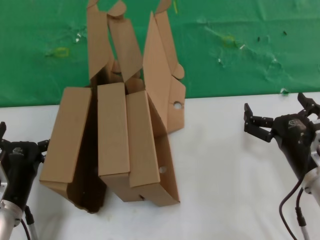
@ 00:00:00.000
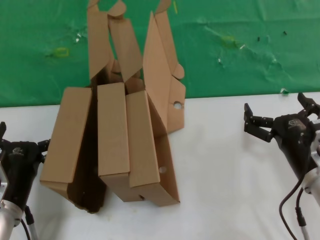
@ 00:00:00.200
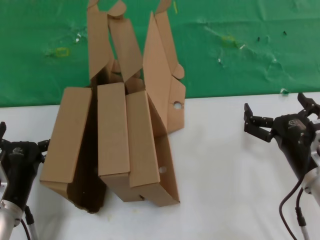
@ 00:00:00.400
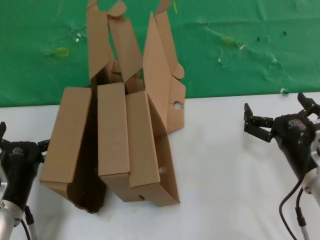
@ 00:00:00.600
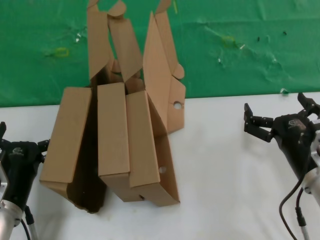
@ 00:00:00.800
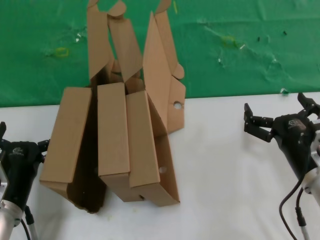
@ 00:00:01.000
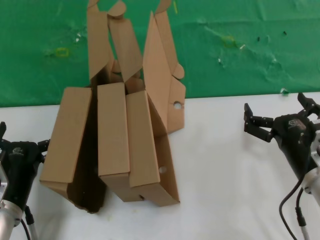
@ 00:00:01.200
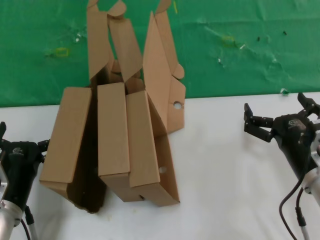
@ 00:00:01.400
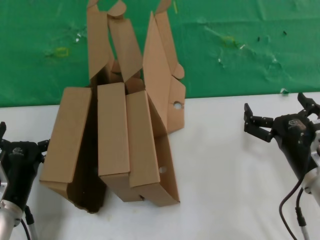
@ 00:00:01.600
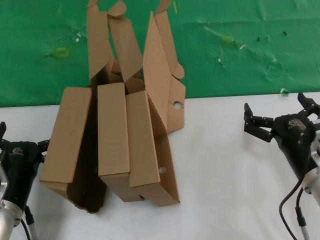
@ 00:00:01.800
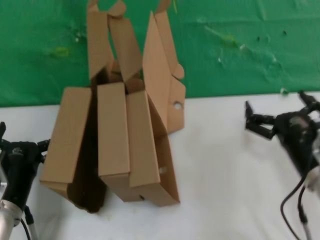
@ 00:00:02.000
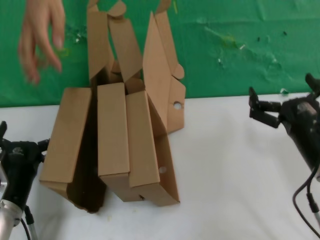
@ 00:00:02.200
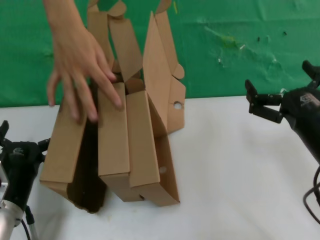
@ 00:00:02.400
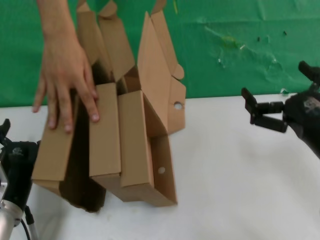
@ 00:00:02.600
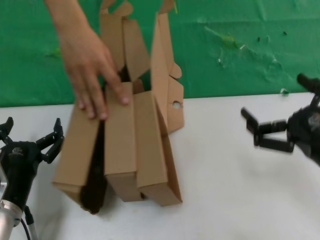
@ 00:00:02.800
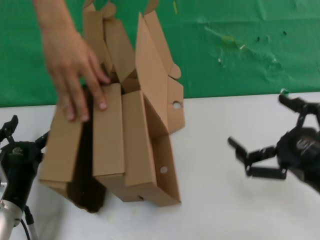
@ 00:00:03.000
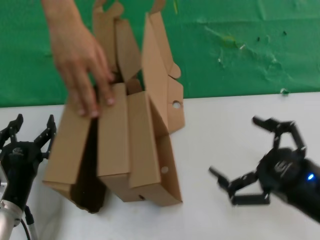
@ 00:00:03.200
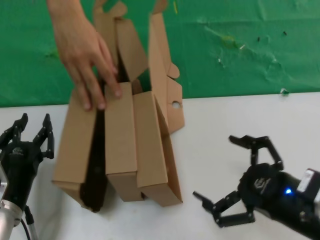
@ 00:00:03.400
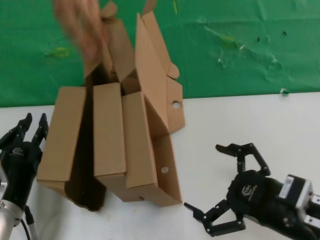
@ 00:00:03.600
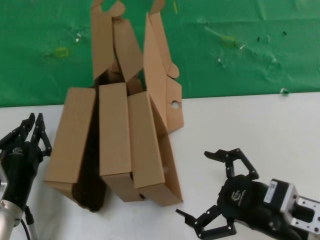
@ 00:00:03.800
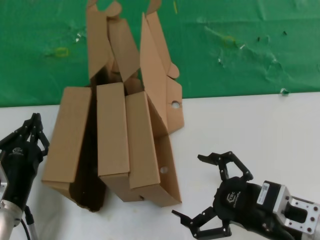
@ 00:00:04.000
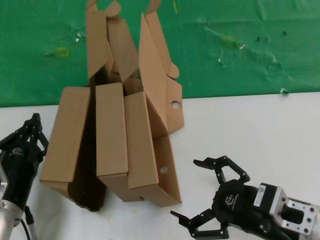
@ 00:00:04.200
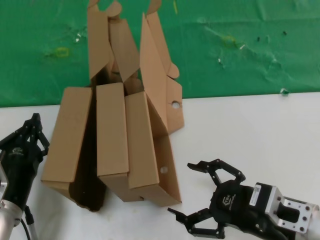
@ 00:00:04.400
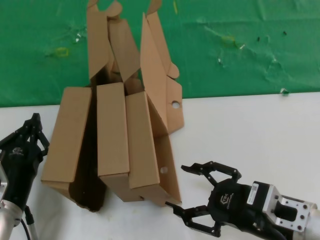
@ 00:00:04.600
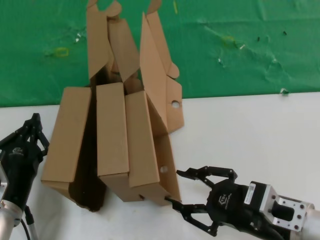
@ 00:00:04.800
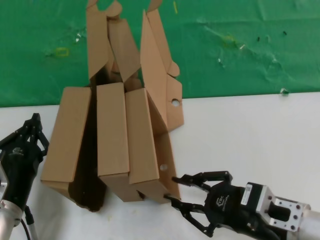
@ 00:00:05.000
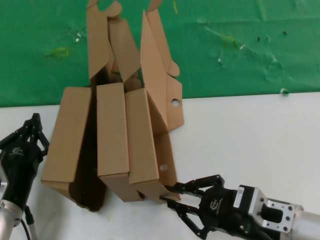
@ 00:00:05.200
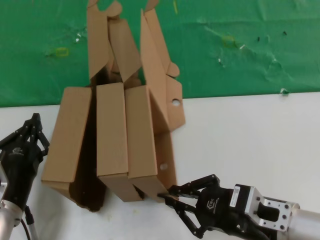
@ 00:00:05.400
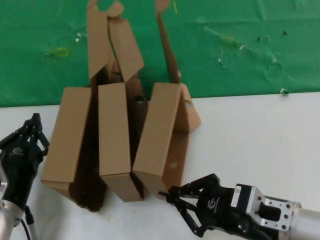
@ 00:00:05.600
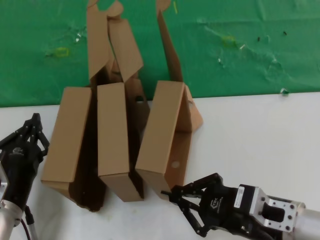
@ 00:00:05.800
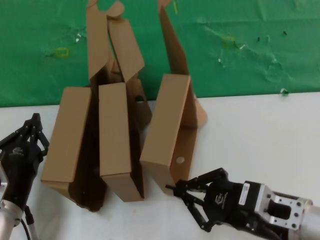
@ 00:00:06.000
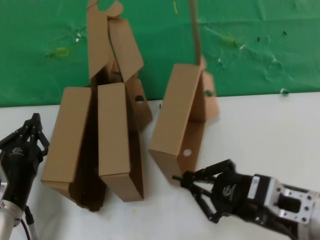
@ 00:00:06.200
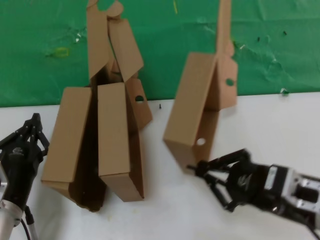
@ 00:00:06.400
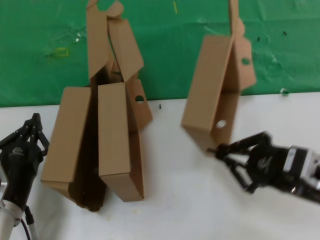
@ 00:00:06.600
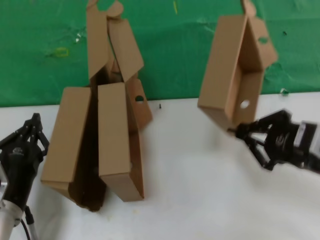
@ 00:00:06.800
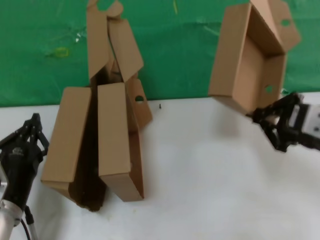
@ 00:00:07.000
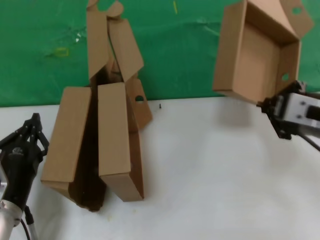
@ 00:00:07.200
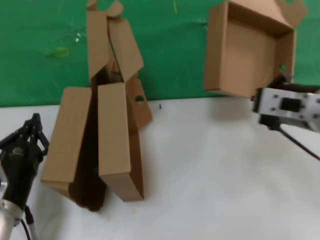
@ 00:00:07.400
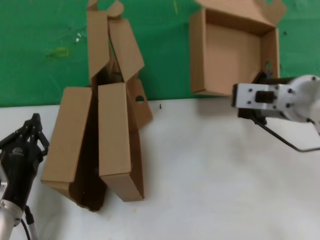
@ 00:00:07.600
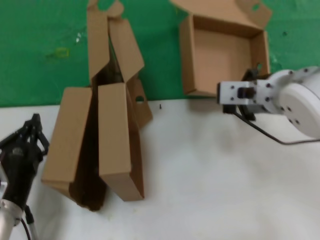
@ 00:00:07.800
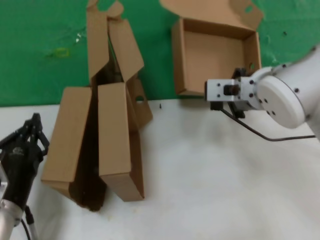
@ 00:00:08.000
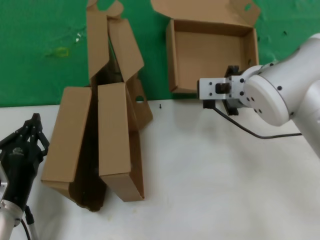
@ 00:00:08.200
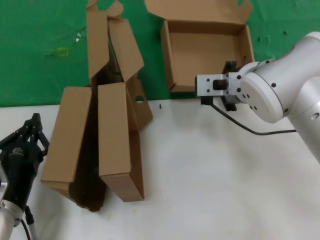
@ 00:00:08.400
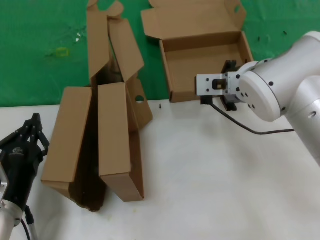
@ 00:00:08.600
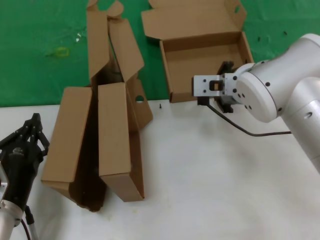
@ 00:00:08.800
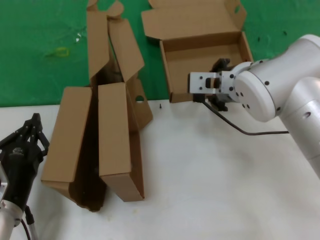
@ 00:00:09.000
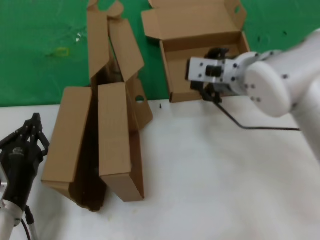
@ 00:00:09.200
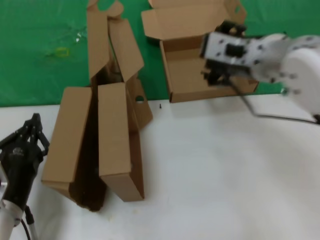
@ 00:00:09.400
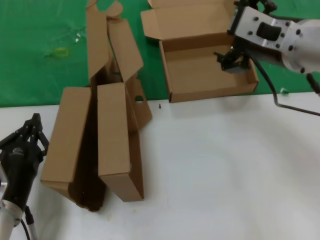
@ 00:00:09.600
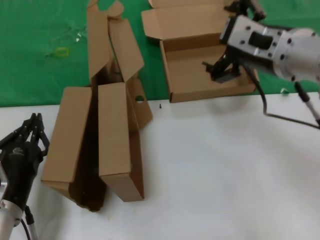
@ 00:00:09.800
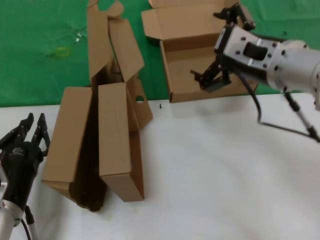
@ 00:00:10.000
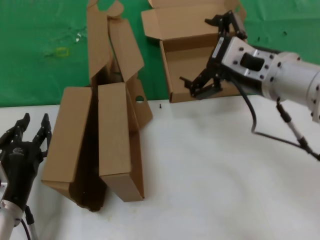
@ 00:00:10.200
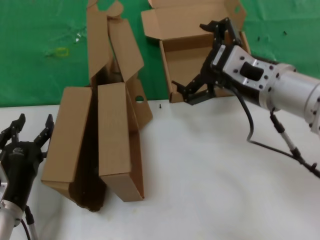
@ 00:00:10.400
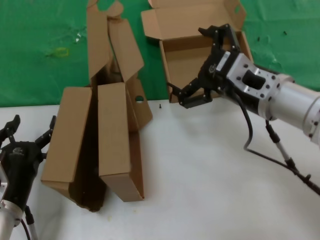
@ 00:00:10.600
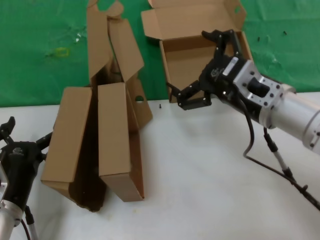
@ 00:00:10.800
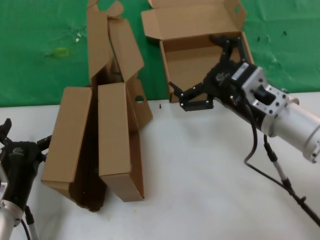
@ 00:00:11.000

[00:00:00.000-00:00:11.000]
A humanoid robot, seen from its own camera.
Task of the whole recording: pick up the paper box and put it at the back.
Step, 00:00:00.000 to 00:00:05.400: Grasp the paper box.
Step, 00:00:05.600 to 00:00:08.600: Place the paper box on the table.
00:00:00.000 to 00:00:01.600: The two hands keep their place.
00:00:01.600 to 00:00:03.200: The right hand shifts some 15 cm backward and upward.
00:00:03.200 to 00:00:04.800: The right hand moves to the left, some 5 cm.
00:00:06.200 to 00:00:07.800: The right hand moves forward and upward, about 20 cm.
00:00:09.400 to 00:00:11.000: The right hand goes roughly 10 cm downward.

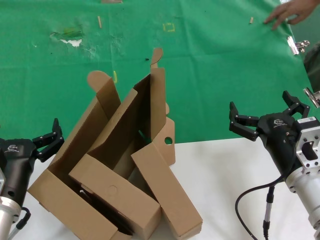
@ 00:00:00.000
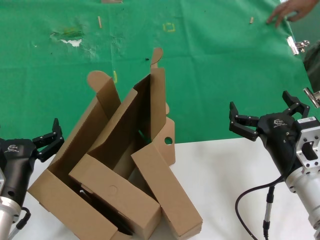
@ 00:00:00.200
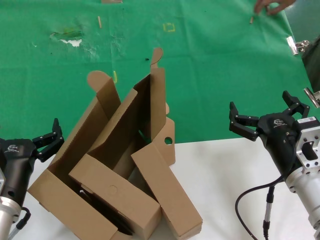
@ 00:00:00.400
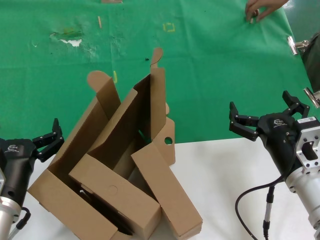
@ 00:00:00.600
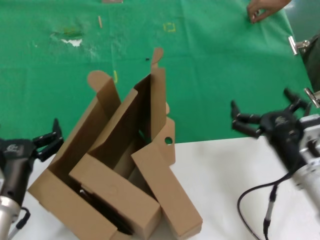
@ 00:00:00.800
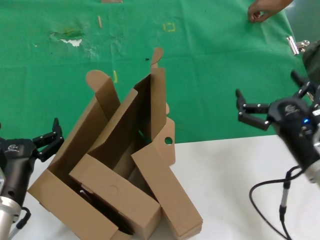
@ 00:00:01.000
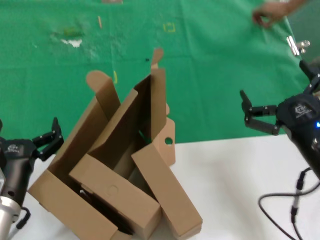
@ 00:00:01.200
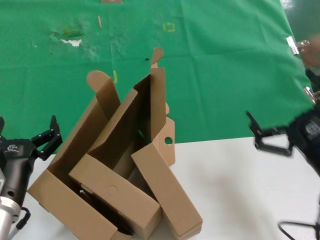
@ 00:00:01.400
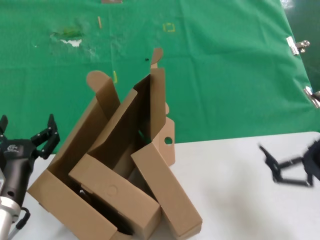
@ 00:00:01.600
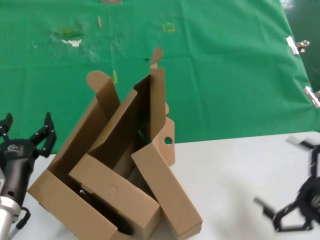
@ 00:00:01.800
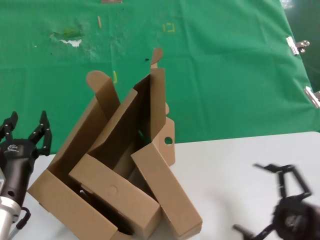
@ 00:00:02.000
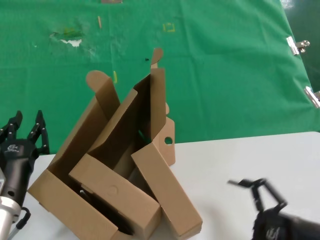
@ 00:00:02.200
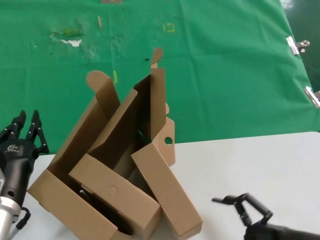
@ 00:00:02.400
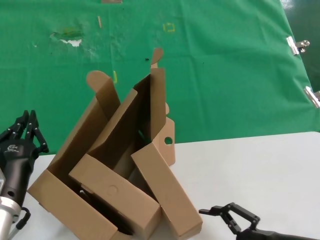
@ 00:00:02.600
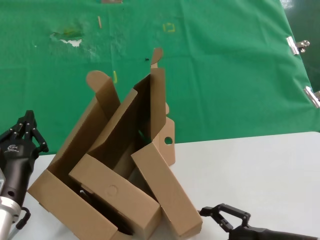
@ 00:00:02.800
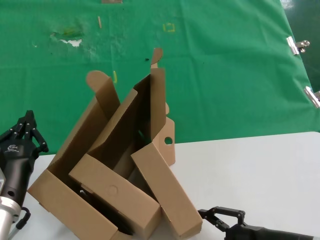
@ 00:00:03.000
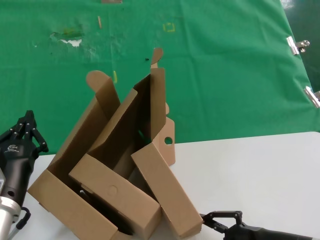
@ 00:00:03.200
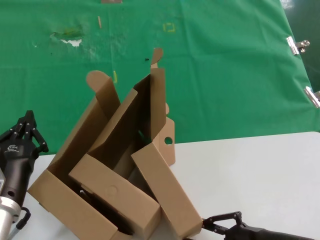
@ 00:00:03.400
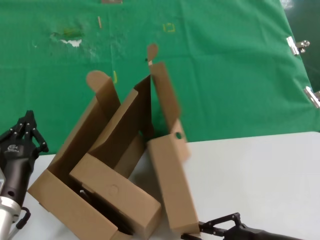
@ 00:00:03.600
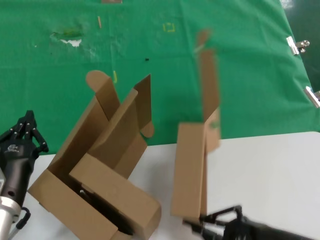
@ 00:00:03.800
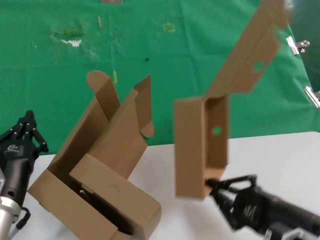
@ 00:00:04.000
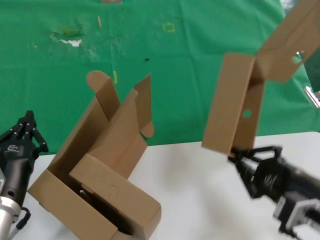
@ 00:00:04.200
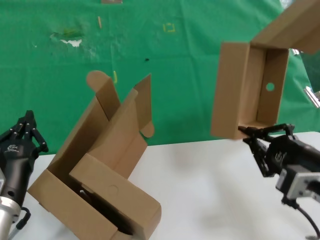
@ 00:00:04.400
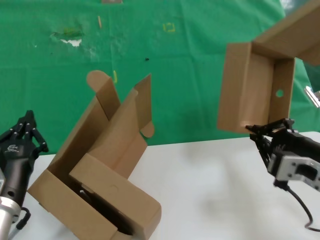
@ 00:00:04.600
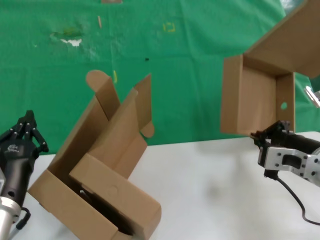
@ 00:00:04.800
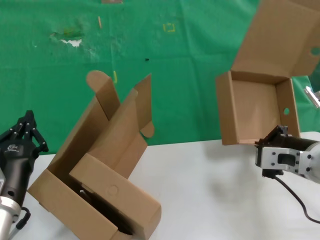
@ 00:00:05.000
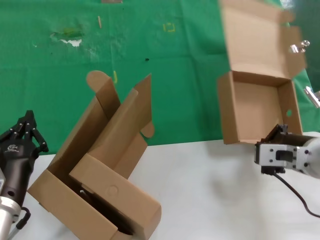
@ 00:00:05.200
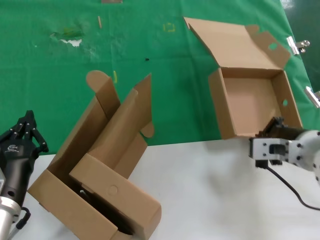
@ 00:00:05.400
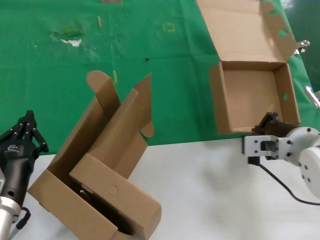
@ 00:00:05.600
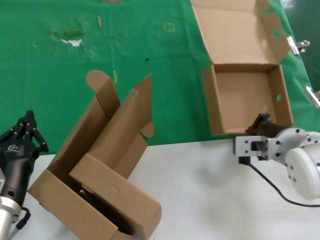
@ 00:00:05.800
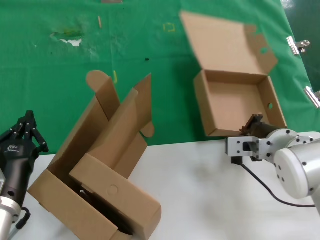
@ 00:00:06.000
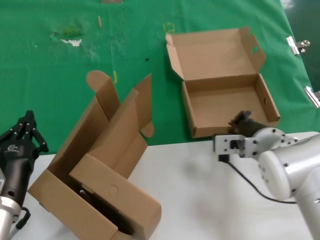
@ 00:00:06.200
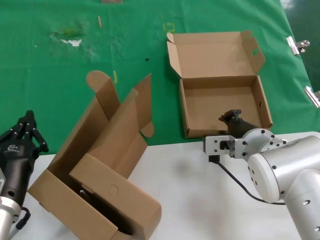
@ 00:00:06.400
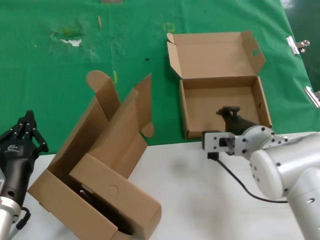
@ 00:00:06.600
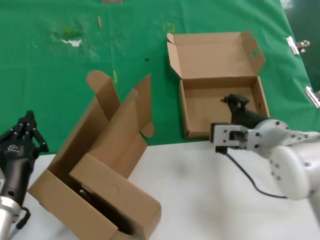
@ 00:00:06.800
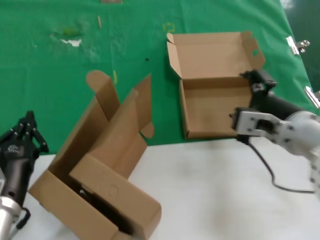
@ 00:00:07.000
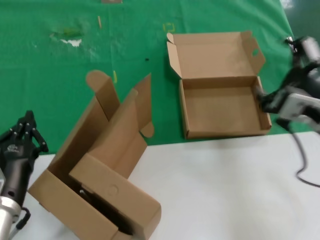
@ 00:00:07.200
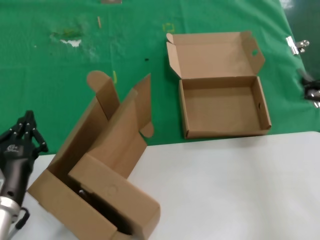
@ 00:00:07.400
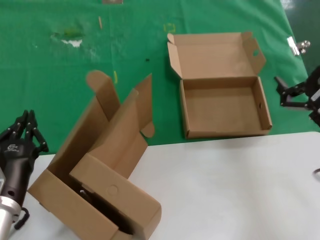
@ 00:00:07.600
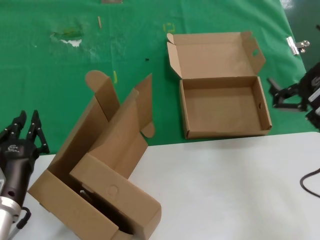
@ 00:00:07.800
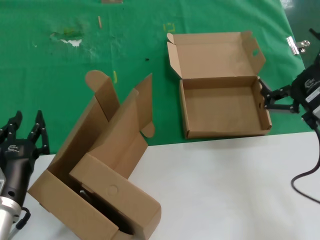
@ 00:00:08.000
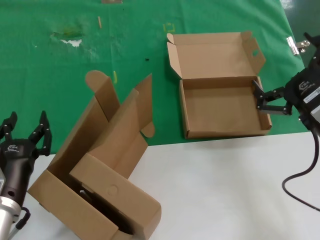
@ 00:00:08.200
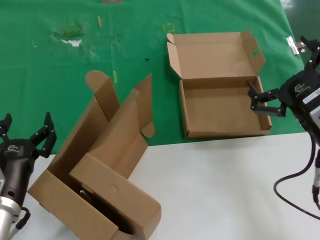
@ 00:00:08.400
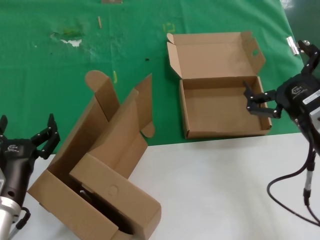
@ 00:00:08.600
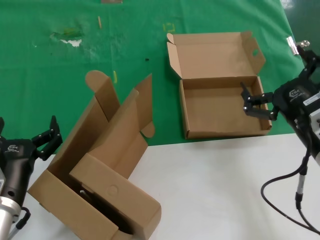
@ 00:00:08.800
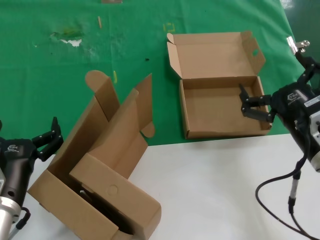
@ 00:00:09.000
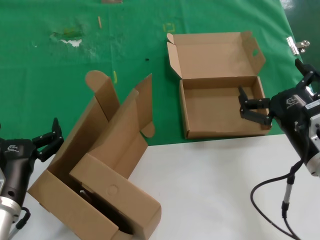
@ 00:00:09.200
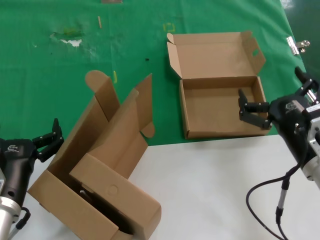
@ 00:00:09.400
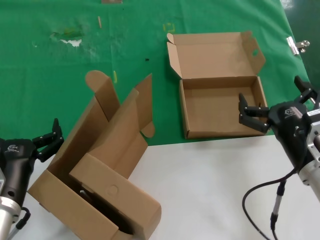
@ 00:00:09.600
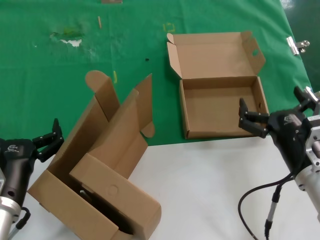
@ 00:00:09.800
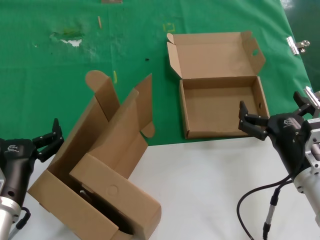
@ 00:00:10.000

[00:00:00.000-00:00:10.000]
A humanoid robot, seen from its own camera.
Task of the whole recording: pick up the paper box and put it at the back.
Step, 00:00:00.000 to 00:00:03.600: Grasp the paper box.
Step, 00:00:03.800 to 00:00:06.400: Place the paper box on the table.
00:00:00.000 to 00:00:01.400: The right hand travels backward and upward by approximately 10 cm.
00:00:01.400 to 00:00:02.800: The right hand is displaced downward by roughly 10 cm.
00:00:02.800 to 00:00:04.200: The right hand goes roughly 10 cm upward.
00:00:04.200 to 00:00:05.800: The right hand shifts approximately 15 cm forward.
00:00:05.800 to 00:00:07.200: The right hand is displaced backward and upward by about 10 cm.
00:00:07.200 to 00:00:08.600: The right hand moves downward, approximately 5 cm.
00:00:08.600 to 00:00:10.000: The right hand is displaced downward by approximately 10 cm.
